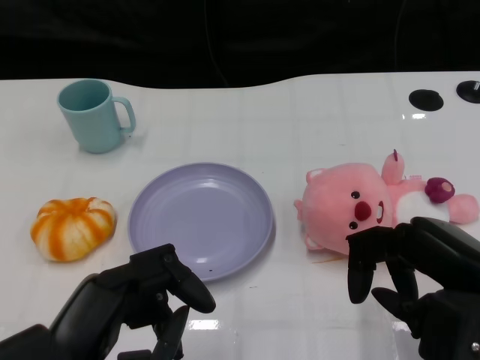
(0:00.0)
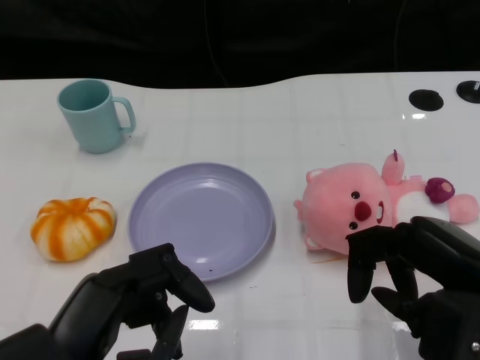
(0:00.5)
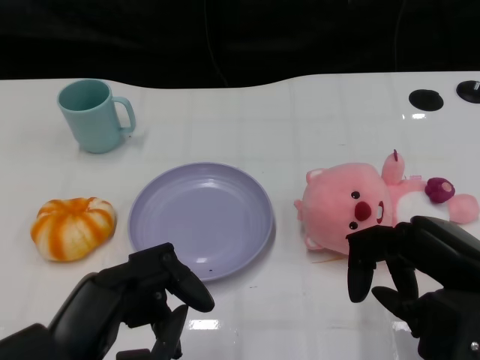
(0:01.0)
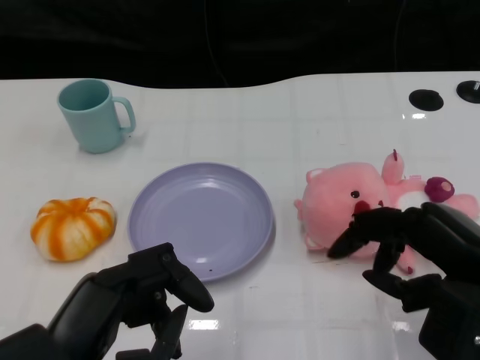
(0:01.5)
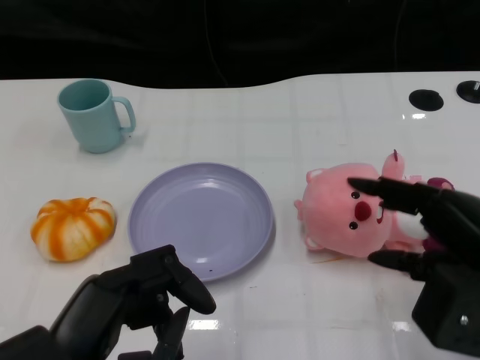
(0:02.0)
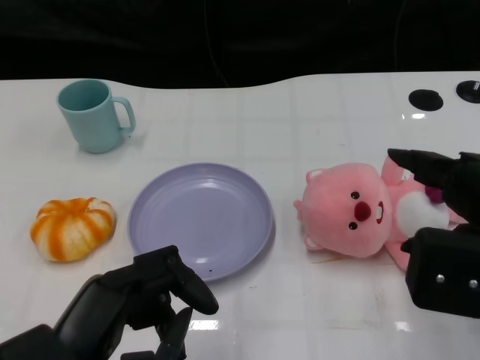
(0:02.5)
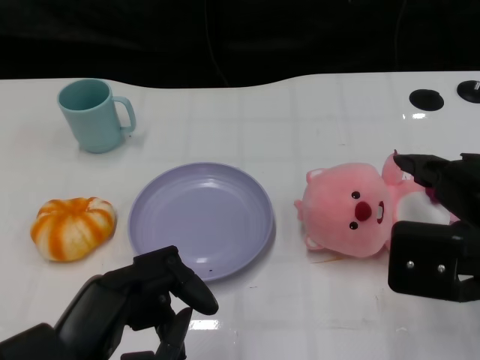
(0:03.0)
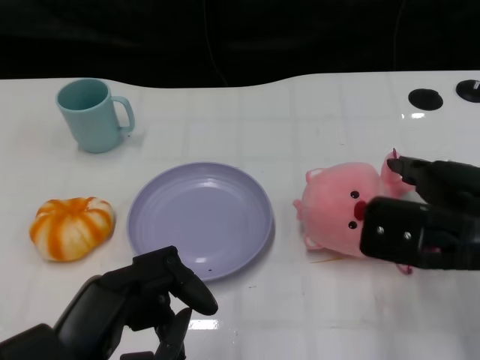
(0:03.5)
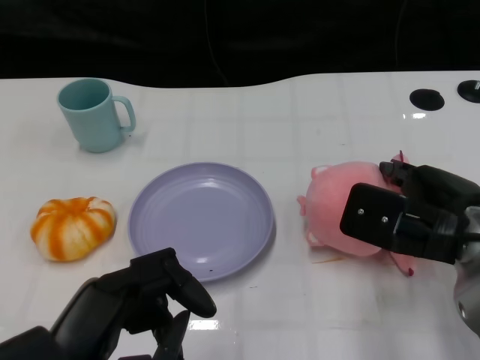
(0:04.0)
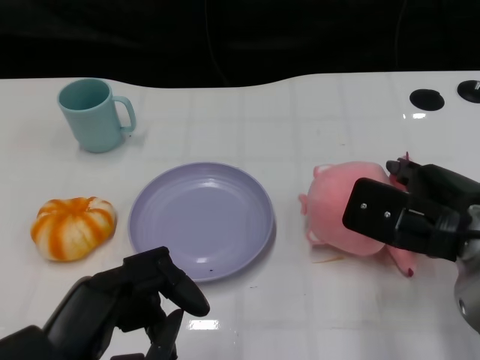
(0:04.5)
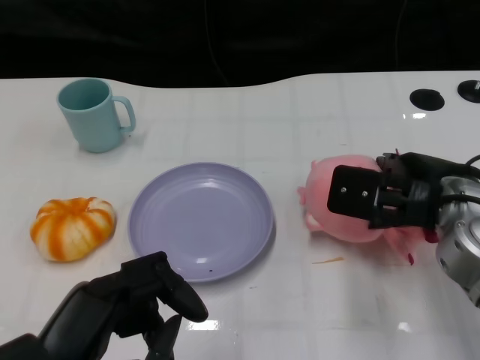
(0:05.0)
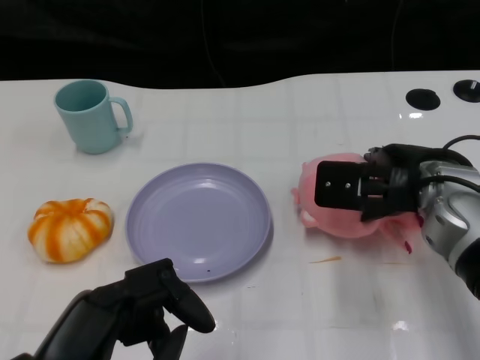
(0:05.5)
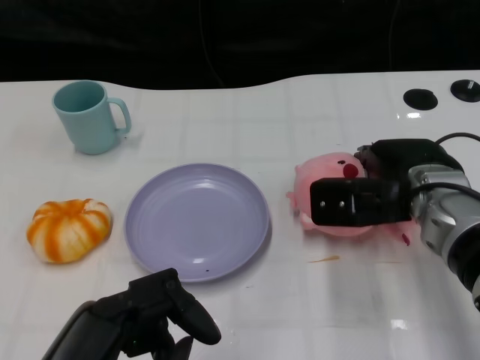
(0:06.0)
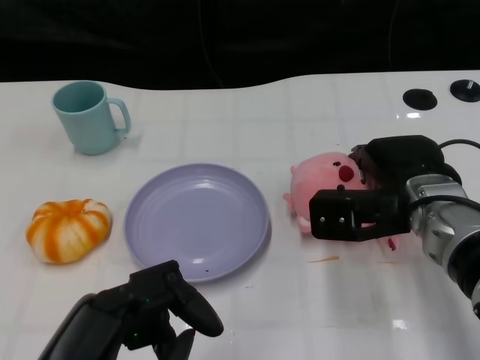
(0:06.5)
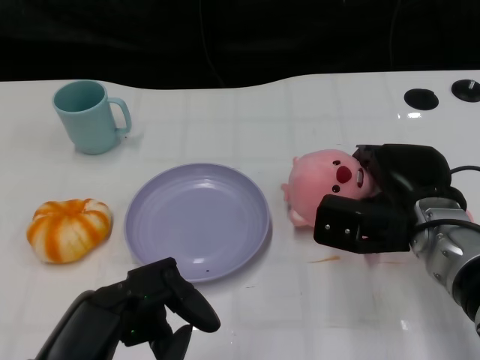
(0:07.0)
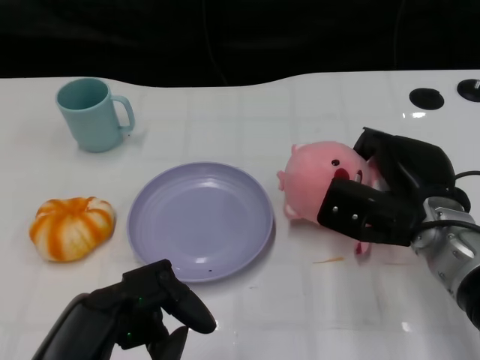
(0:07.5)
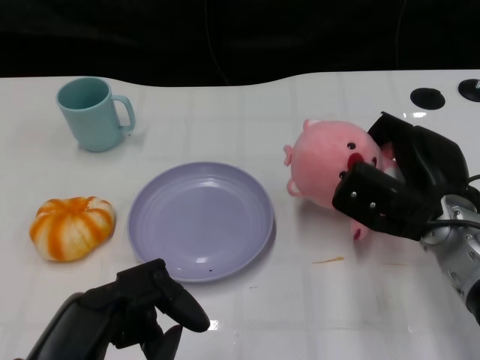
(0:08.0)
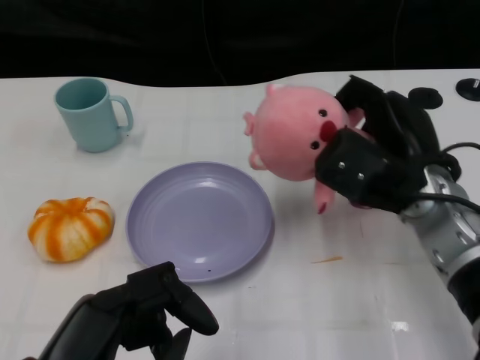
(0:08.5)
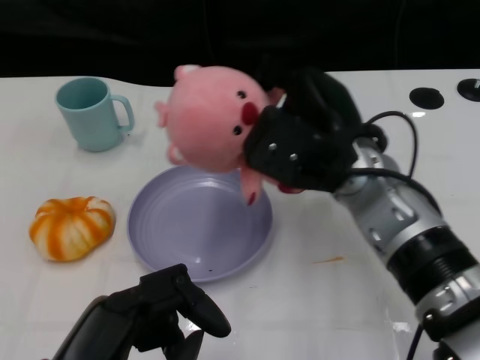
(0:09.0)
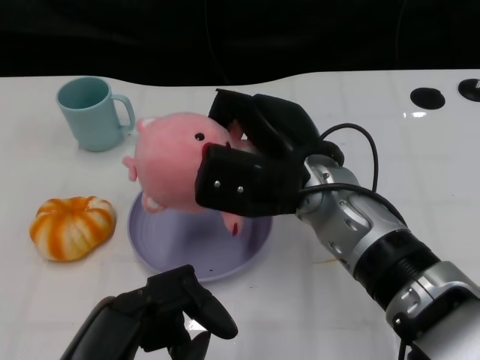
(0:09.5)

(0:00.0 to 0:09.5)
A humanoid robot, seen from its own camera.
Task of the whole recording: Pick up the doll on the other side of the plate and place it into the plate.
Step, 0:01.5 - 0:08.5: Grasp the pink doll with the right gripper.
0:02.0 - 0:04.0: The right hand shifts about 5 cm forward.
0:04.0 - 0:05.5: The right hand goes approximately 5 cm forward.
0:07.5 - 0:09.5: The right hand travels to the left and upward by some 15 cm.

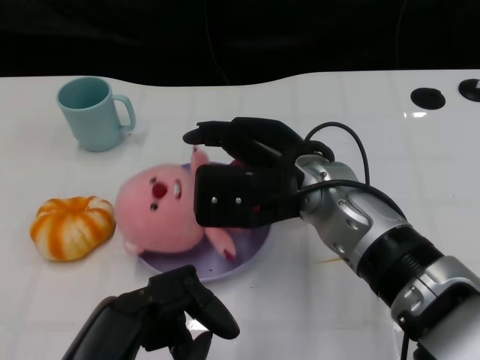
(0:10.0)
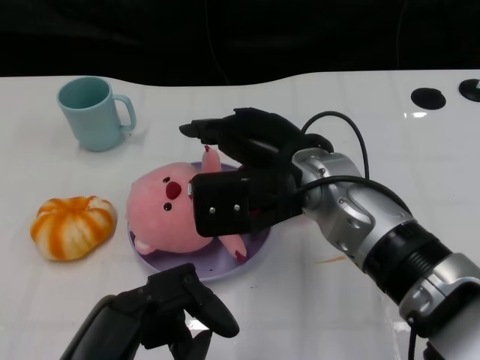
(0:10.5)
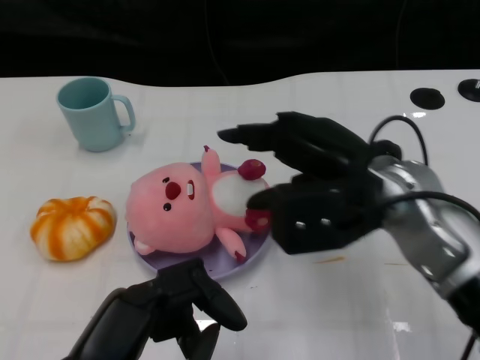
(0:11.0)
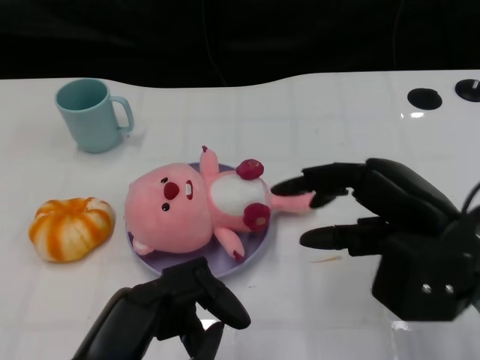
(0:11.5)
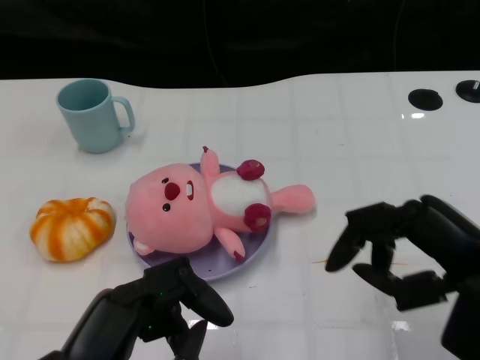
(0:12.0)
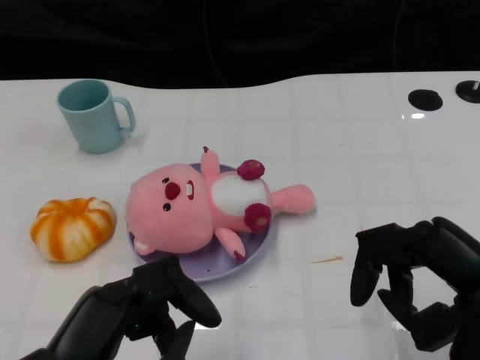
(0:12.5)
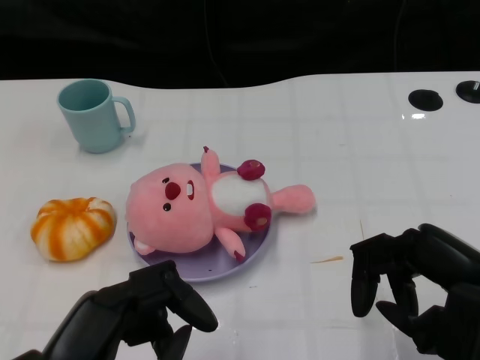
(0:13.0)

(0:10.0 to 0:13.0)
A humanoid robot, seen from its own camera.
Task of the whole recording: Pick up the doll on the other side of the plate and place it into the plate.
0:10.0 - 0:11.5: The right hand moves to the right and backward, approximately 15 cm.
0:11.5 - 0:13.0: The right hand heads backward, covering roughly 5 cm.

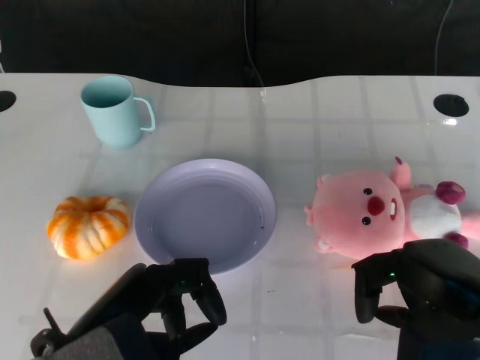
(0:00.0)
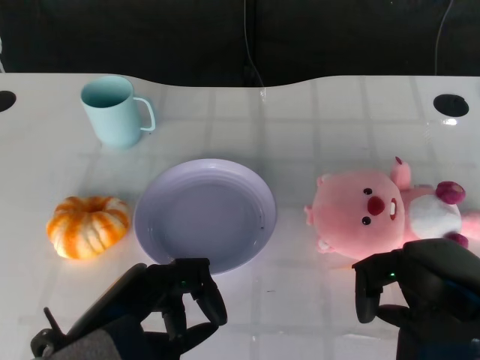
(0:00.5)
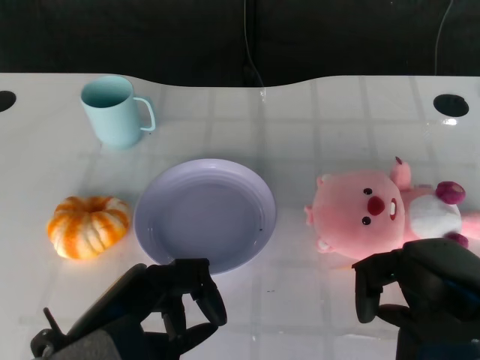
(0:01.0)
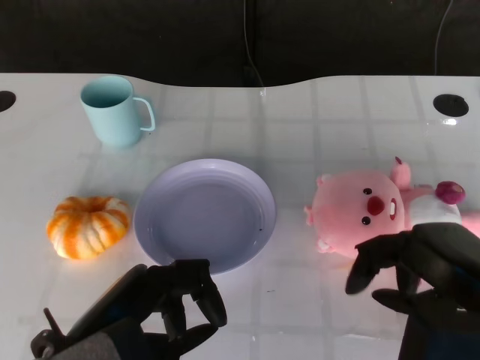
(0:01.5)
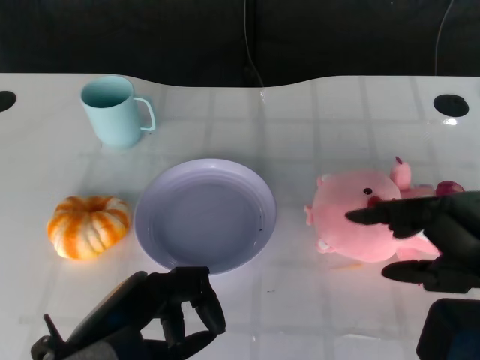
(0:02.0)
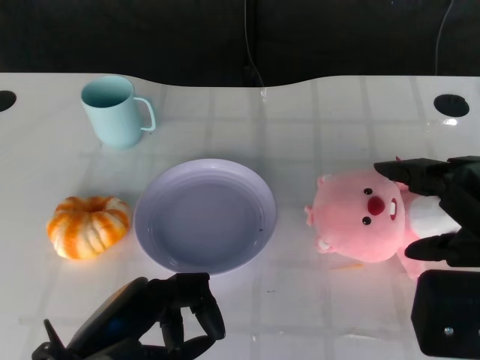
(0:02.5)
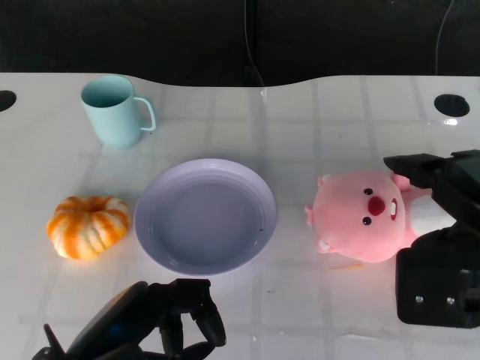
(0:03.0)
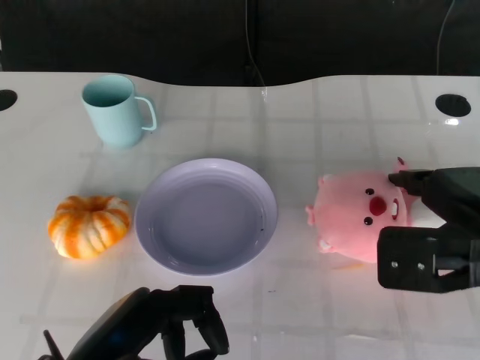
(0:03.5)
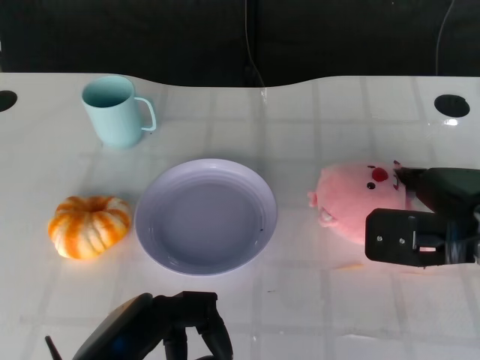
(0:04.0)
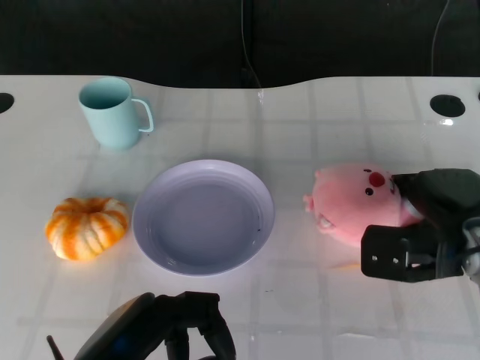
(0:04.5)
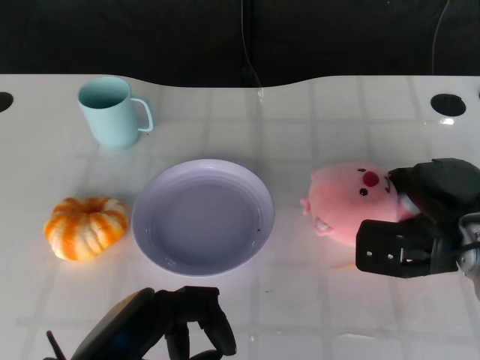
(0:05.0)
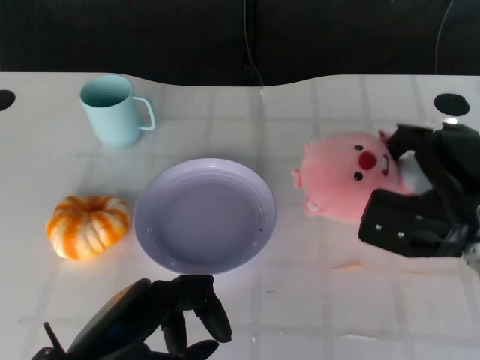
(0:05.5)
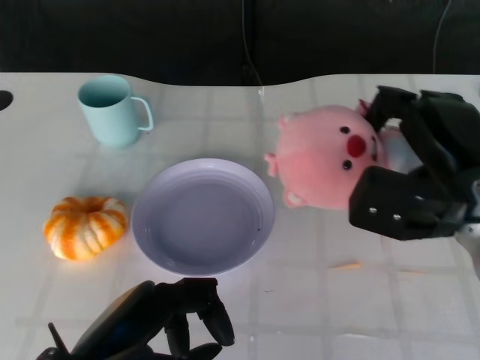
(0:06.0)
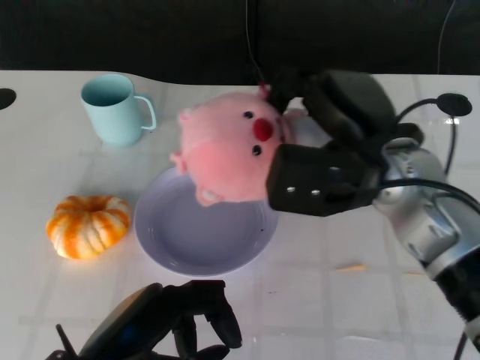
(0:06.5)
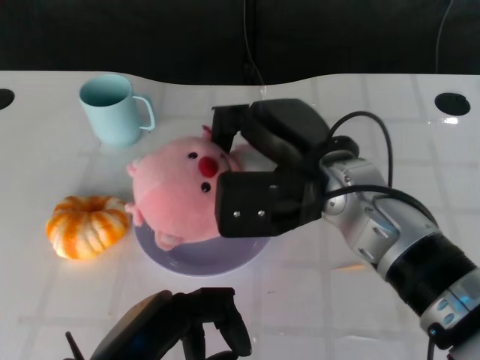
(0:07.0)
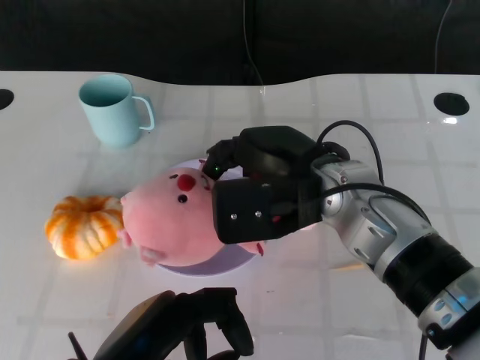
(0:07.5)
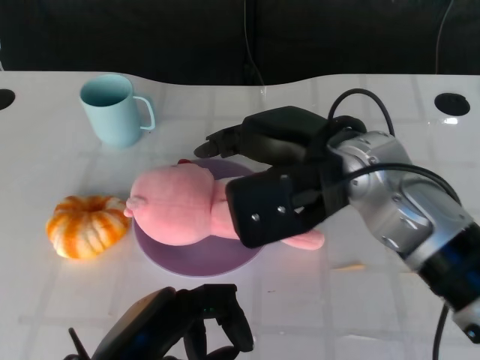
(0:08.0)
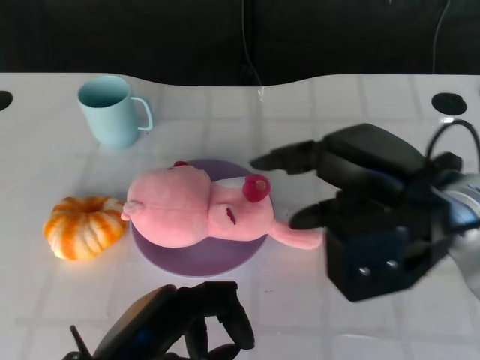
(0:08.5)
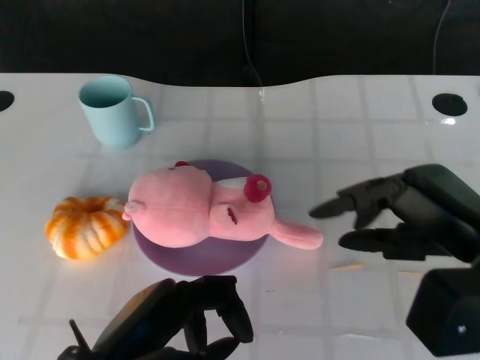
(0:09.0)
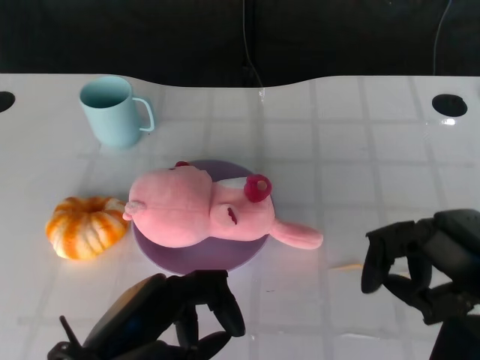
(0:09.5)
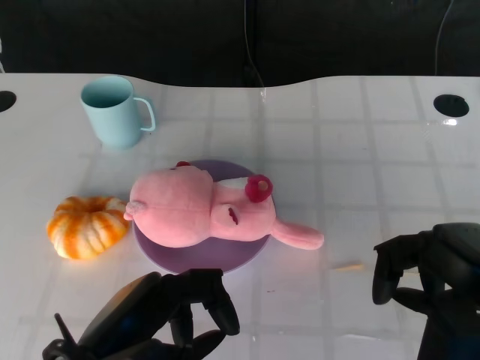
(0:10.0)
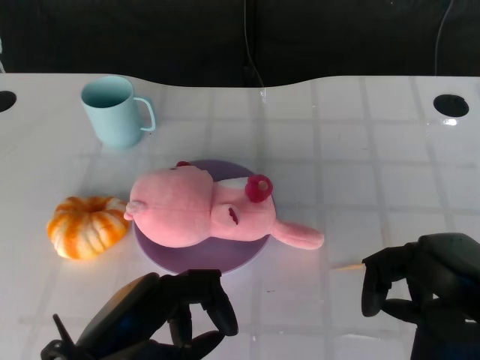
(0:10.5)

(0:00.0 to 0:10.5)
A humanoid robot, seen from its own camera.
Task of the whole recording: Pick up the doll on the other side of the plate and place it into the plate.
Step, 0:01.5 - 0:05.0: Grasp the pink doll with the right gripper.
Step, 0:05.5 - 0:08.0: Place the pink doll into the plate with the right gripper.
0:02.0 - 0:04.0: The right hand goes roughly 15 cm forward and downward.
0:04.0 - 0:06.5: The right hand goes about 10 cm to the left and upward.
0:06.5 - 0:08.5: The right hand changes place by roughly 5 cm.
0:08.5 - 0:10.5: The right hand is displaced backward, to the right and downward by some 10 cm.

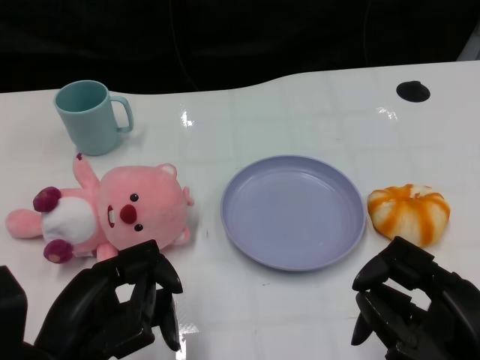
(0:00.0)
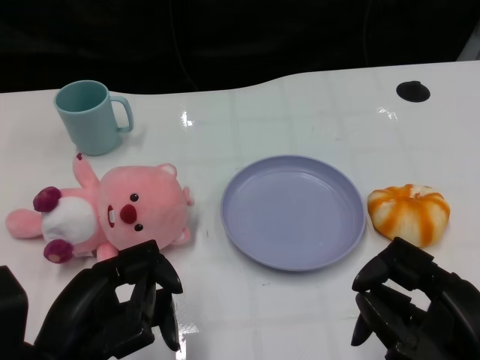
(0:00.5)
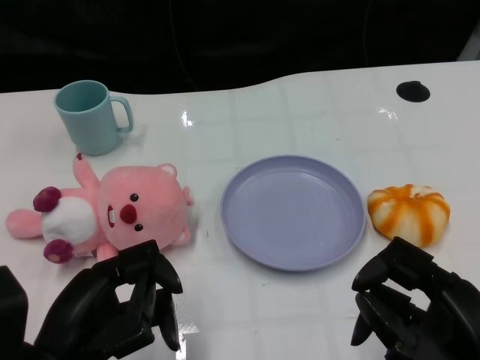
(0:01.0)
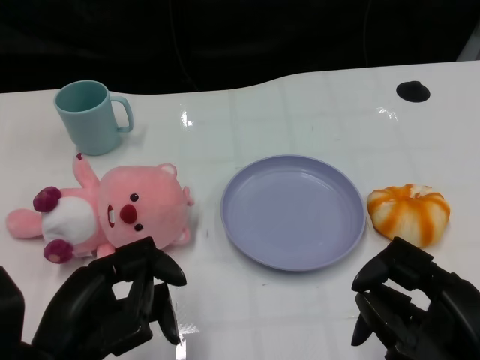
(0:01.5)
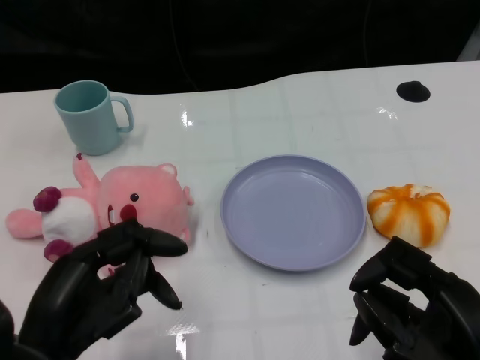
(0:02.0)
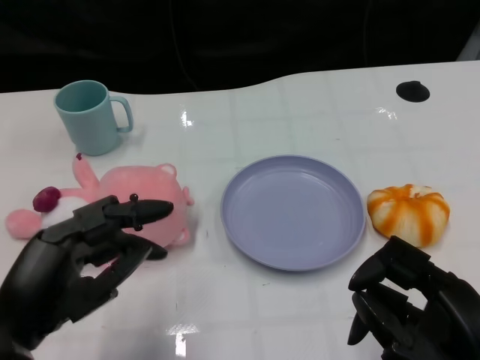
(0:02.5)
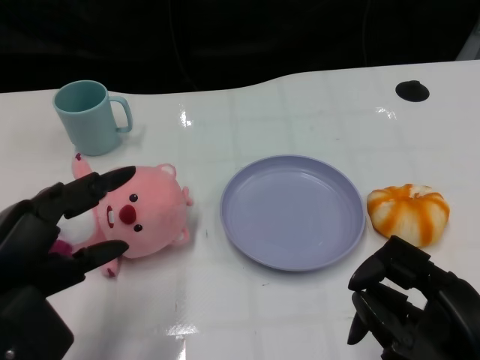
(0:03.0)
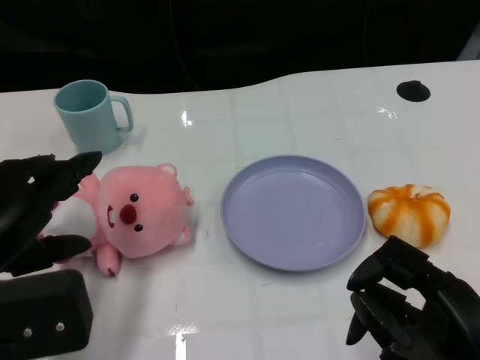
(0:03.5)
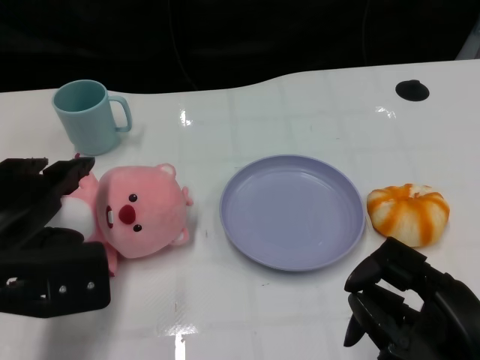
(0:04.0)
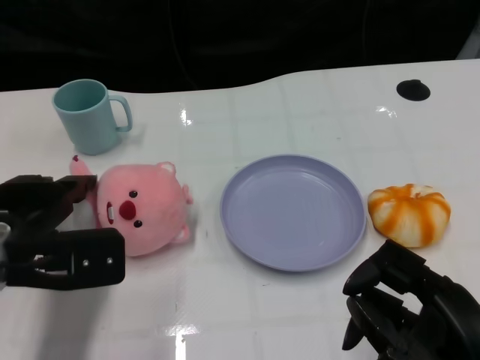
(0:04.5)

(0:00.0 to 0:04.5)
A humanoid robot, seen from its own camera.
Task of the whole recording: Pick up the doll on one side of the plate and place it into the plate.
0:02.0 - 0:04.5: The left hand moves forward, approximately 10 cm.
